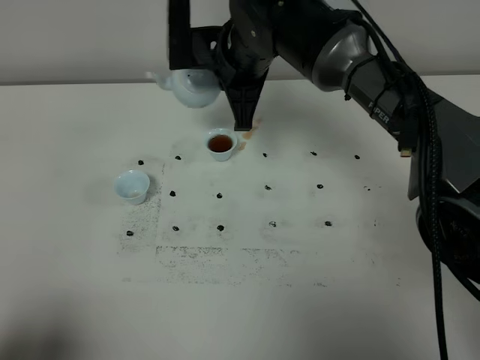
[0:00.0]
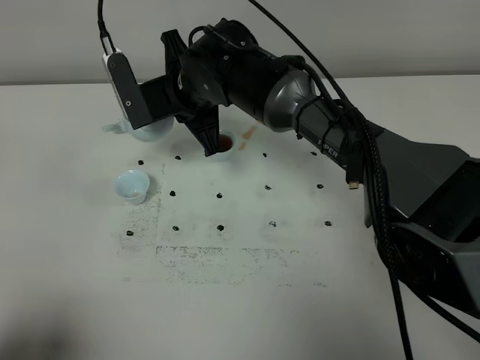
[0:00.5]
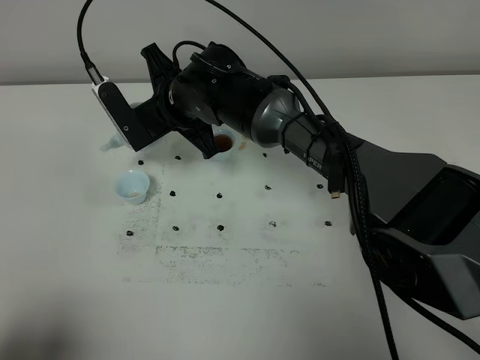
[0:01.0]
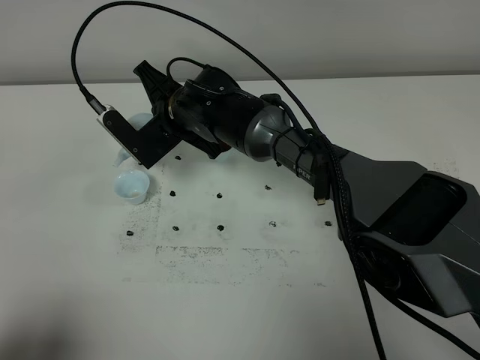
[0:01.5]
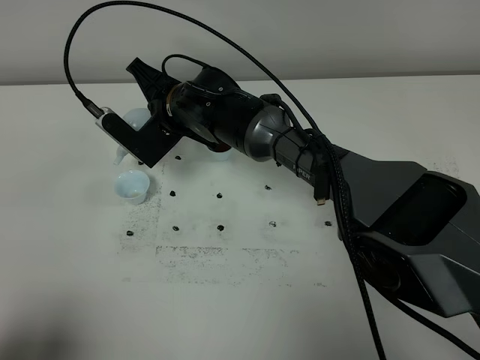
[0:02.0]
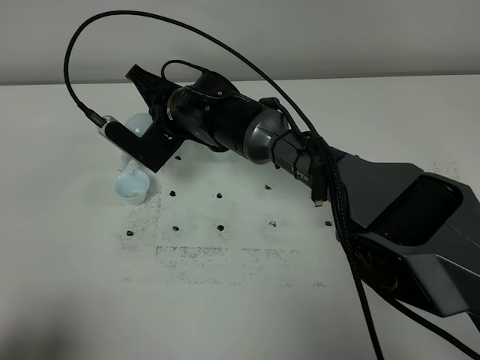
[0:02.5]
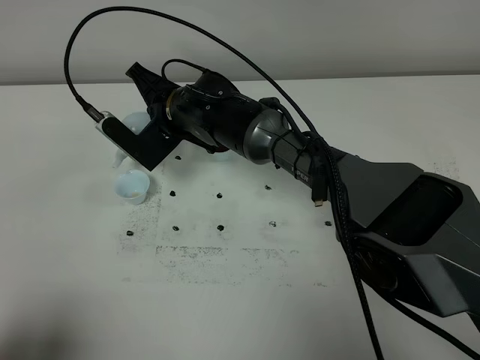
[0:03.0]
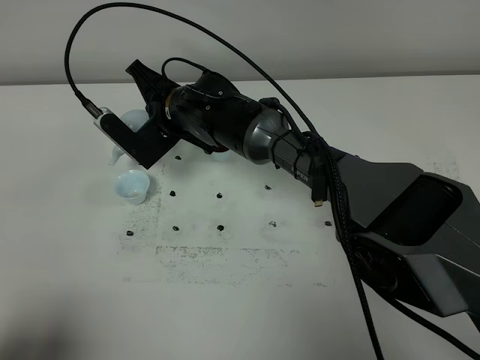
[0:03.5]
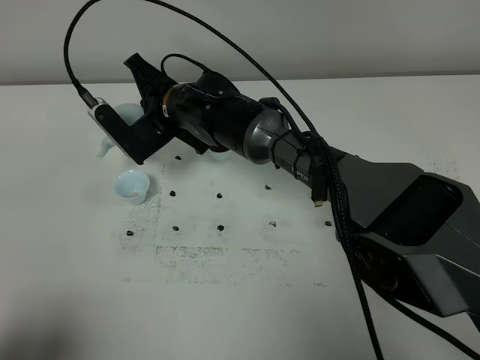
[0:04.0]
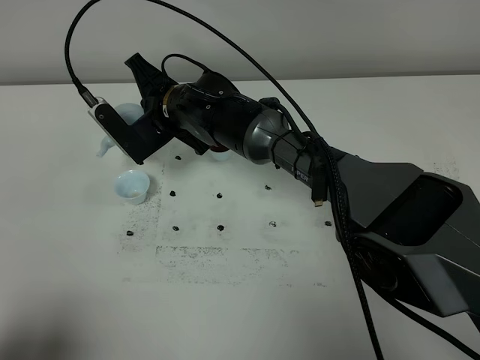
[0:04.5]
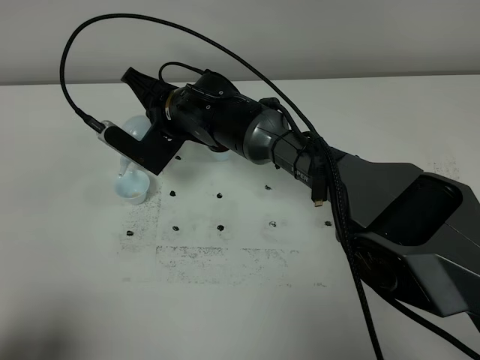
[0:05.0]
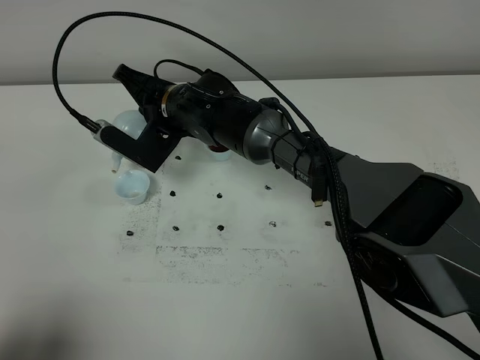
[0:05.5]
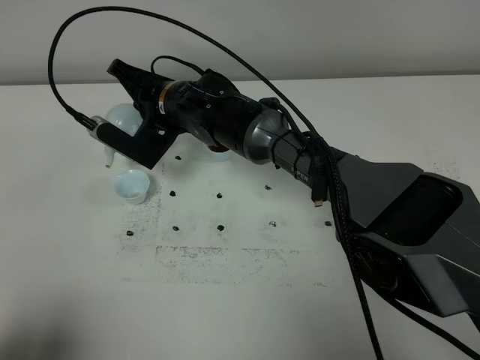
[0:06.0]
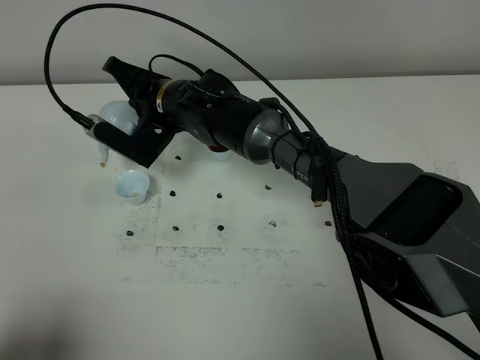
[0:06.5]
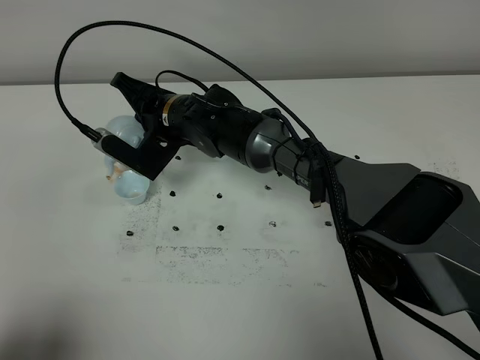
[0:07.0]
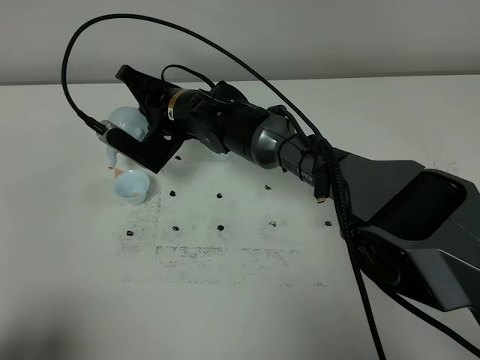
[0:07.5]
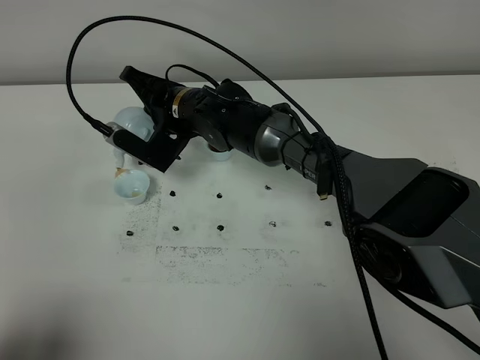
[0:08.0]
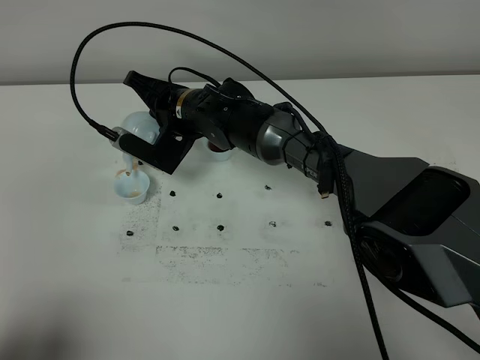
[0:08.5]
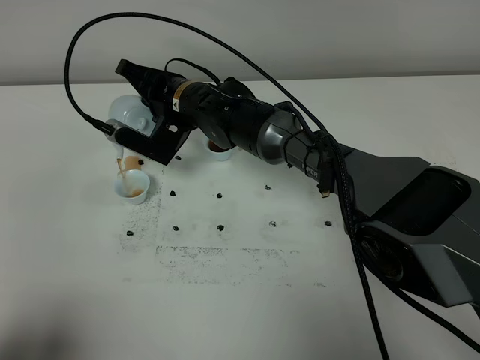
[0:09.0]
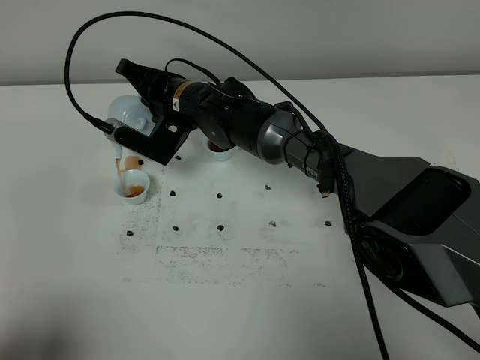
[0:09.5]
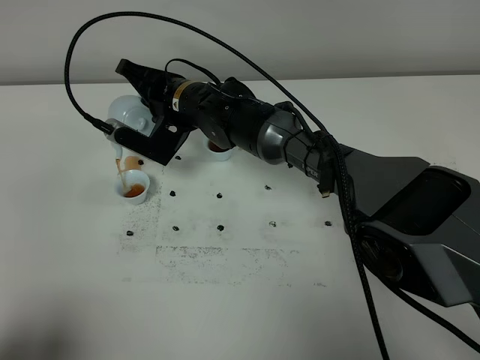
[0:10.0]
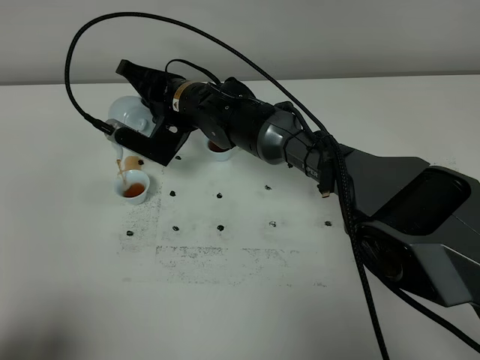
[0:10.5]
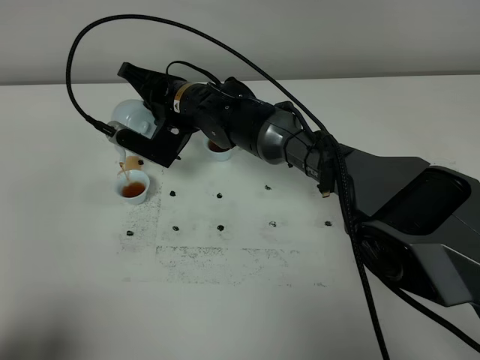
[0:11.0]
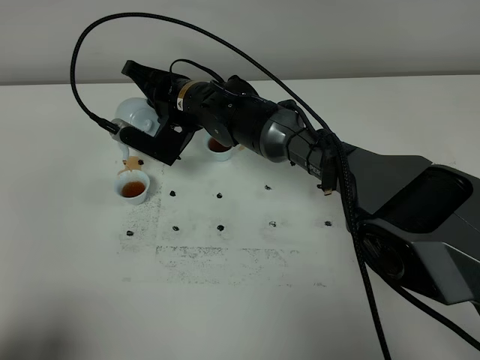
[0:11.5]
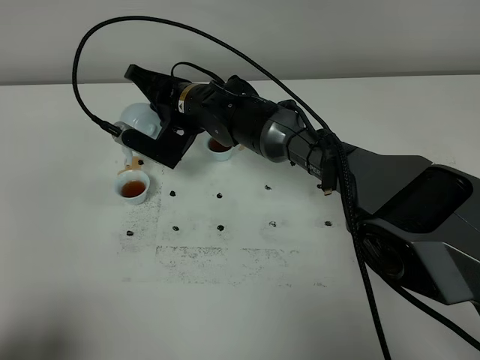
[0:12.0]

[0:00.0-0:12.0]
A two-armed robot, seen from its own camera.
Task of the whole recording: grasp the blue porcelain teapot and pour the tea into the two blue porcelain teacups one by one, put the blue porcelain teapot back in its original place.
0:00.0 to 0:02.0: The right gripper shifts approximately 10 cm downward and to the left.
0:02.0 to 0:08.0: The grippers stay close to where they were, moving slightly.
0:08.0 to 0:12.0: The grippers move only a little.

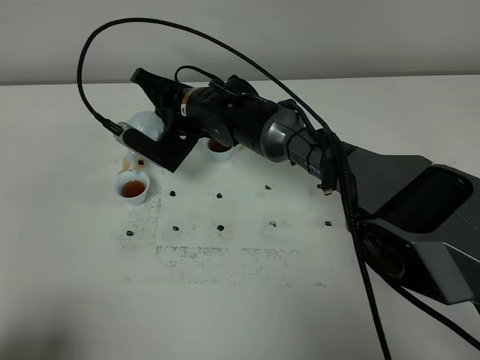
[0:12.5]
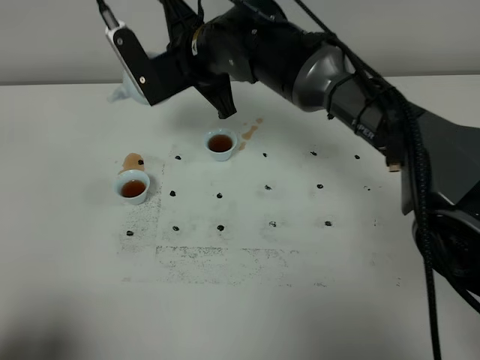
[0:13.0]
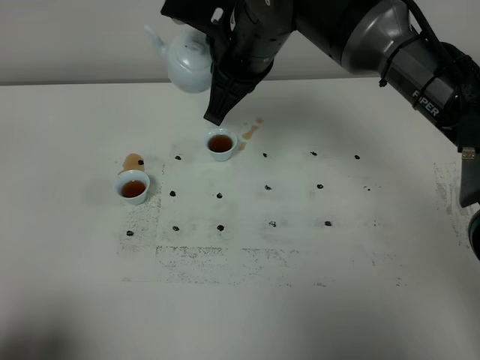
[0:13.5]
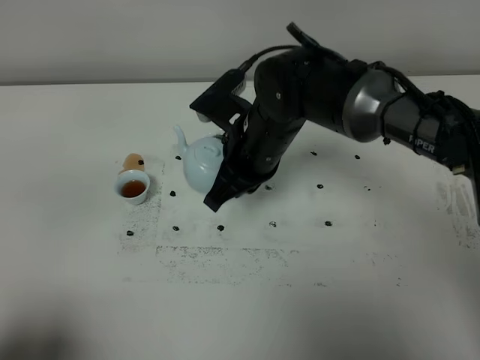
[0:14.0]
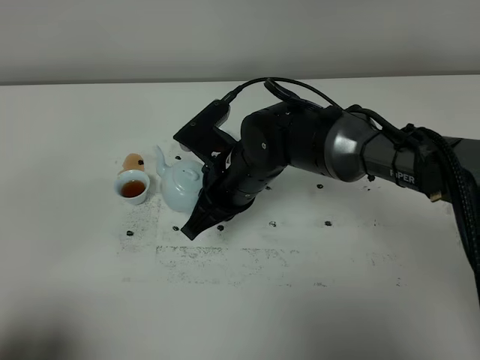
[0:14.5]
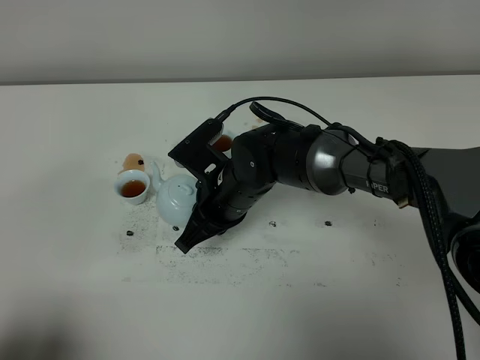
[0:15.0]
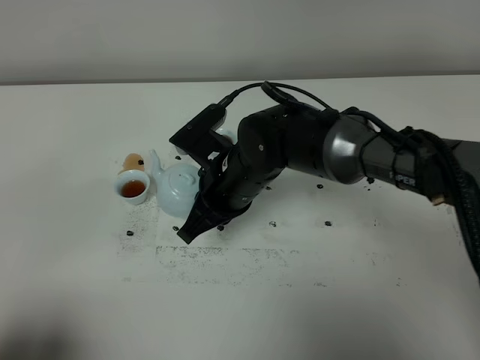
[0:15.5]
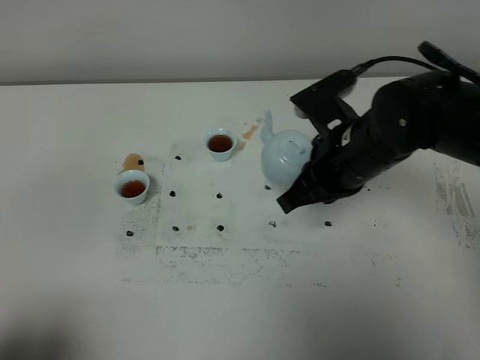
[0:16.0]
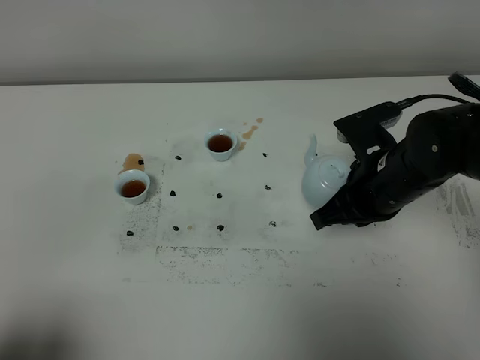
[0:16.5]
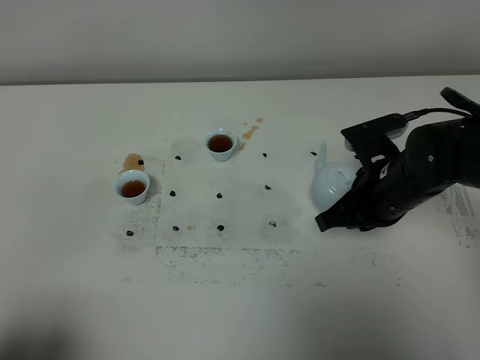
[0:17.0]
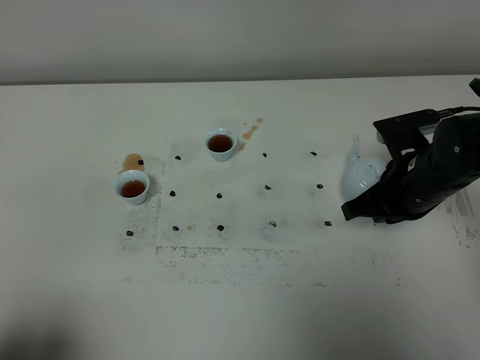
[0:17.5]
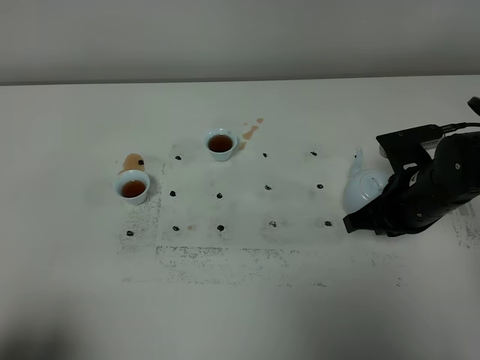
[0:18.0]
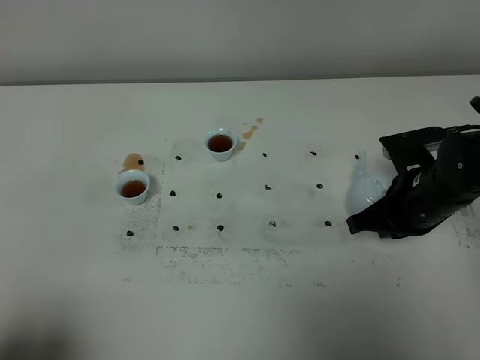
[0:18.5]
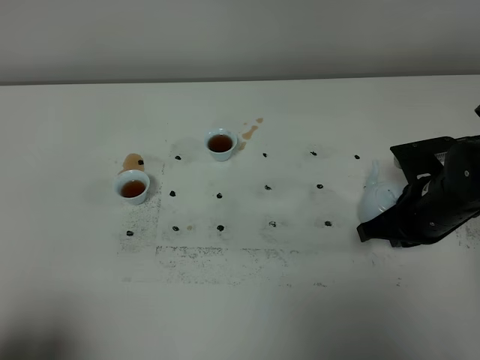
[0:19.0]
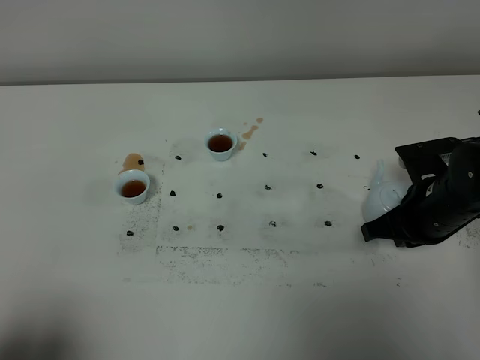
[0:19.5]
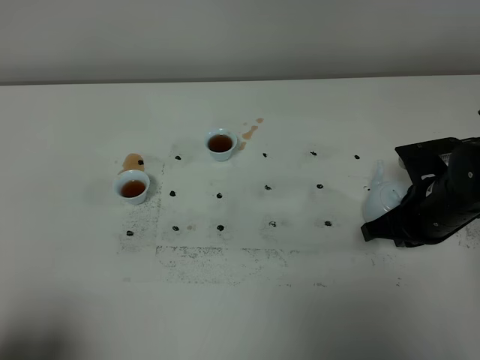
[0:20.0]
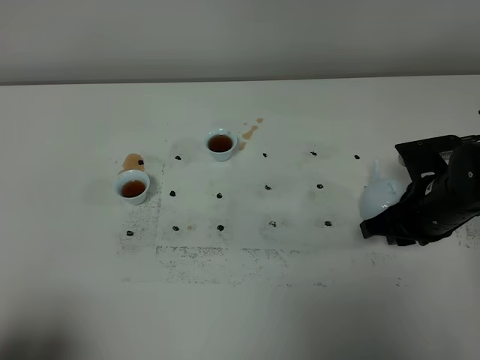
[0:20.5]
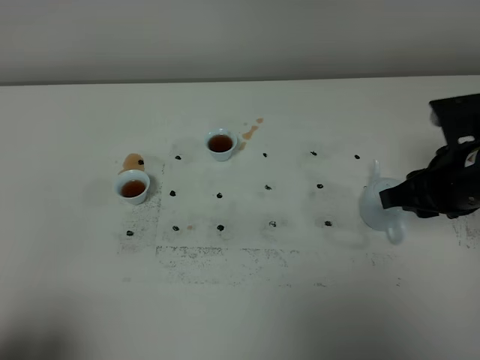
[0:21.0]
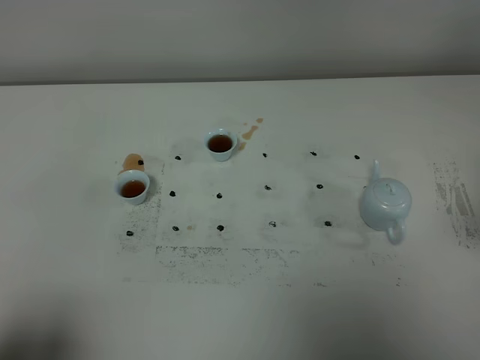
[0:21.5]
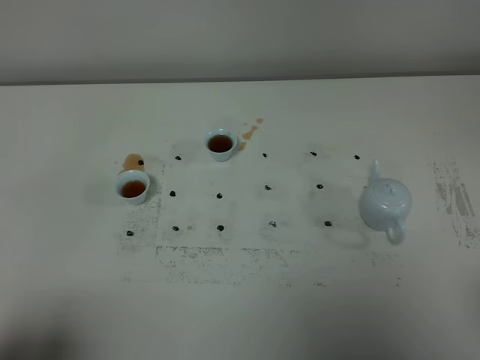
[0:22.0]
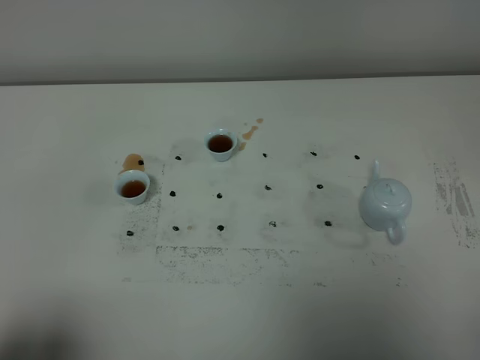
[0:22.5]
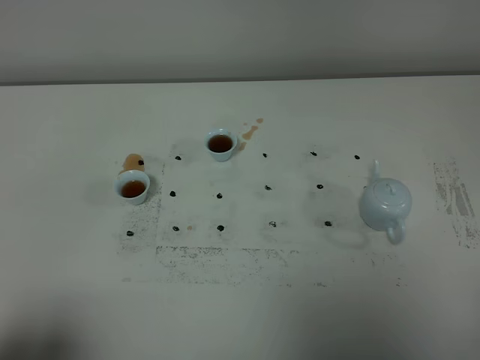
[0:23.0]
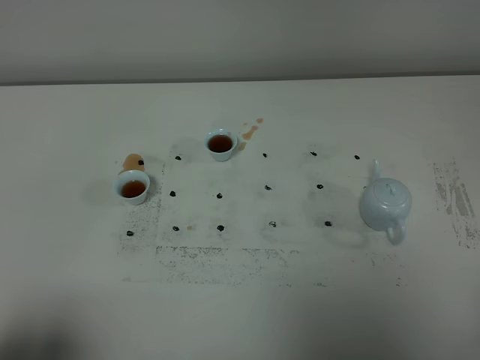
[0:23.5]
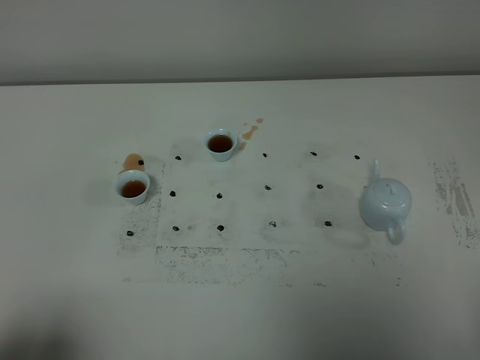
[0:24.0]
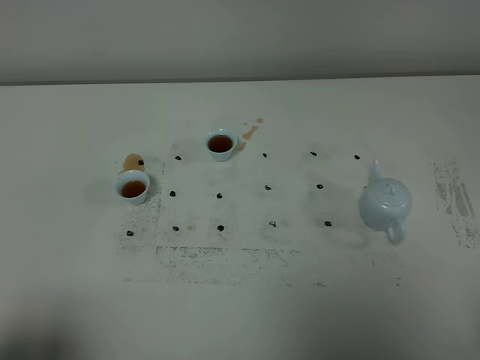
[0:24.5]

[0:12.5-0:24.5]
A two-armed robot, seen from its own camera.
Task of the whole recording: grasp the blue porcelain teapot and pour the tea into the two blue porcelain teacups one by one, put the blue porcelain teapot back in its original place.
0:12.5 to 0:14.5: The right gripper moves backward, approximately 10 cm, and goes upward and returns, some 15 cm each way.
0:14.5 to 0:16.5: The right gripper goes roughly 15 cm to the right.
0:16.5 to 0:18.5: The right gripper moves to the right, approximately 5 cm.
0:18.5 to 0:20.5: The right gripper opens its fingers.
0:20.5 to 0:22.5: The right gripper moves backward and upward, approximately 35 cm.

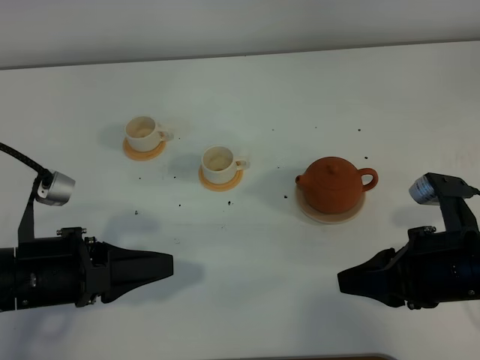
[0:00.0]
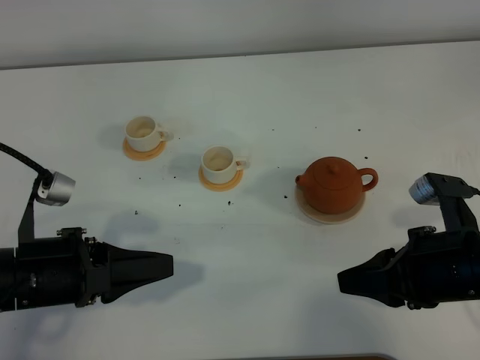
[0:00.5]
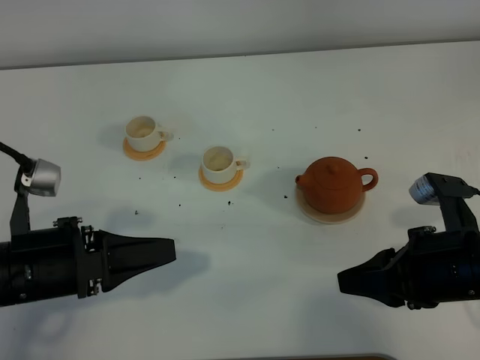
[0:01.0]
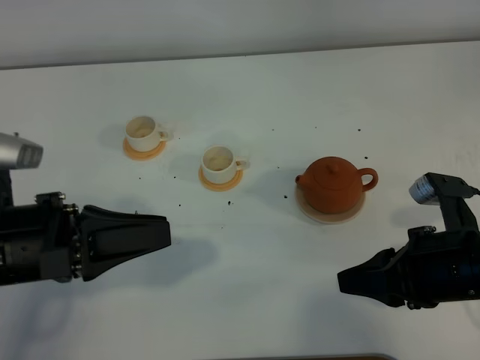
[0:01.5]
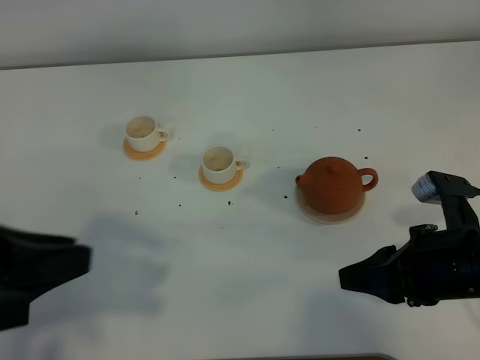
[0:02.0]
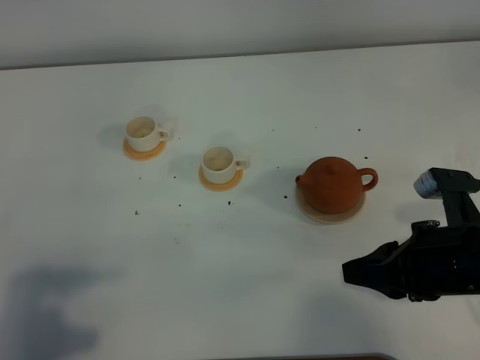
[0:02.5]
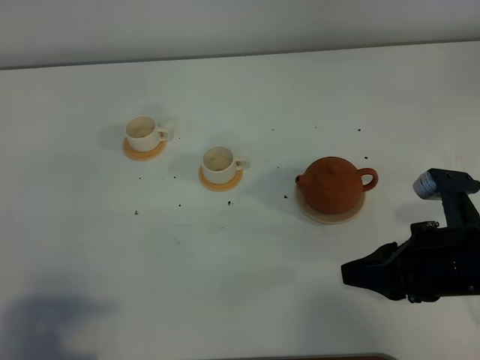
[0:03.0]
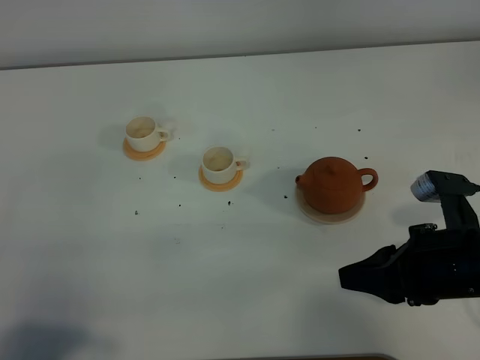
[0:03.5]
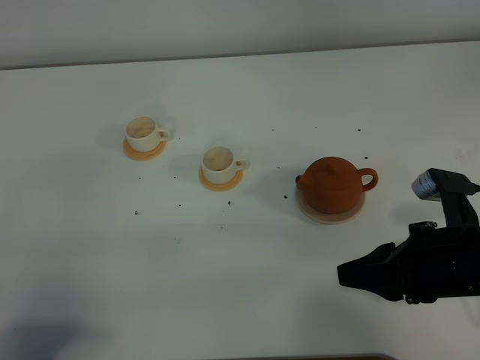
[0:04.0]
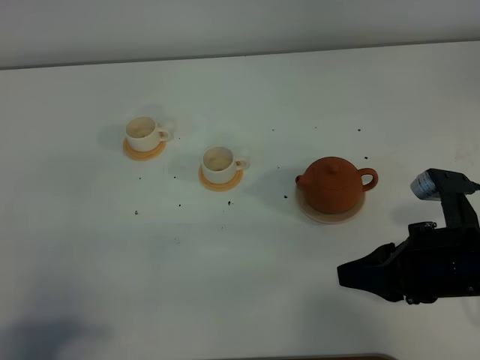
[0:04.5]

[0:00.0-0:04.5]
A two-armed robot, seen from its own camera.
Task of the whole recording: grasp the brown teapot and pour the tea into the two white teacups one by one, put the brown teapot back in its original place.
0:00.0 to 0:02.0: The left gripper shifts about 15 cm upward, and closes.
0:02.0 to 0:04.5: The left gripper travels backward by about 10 cm.
